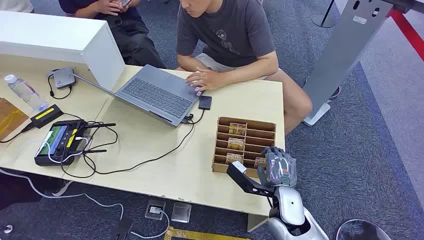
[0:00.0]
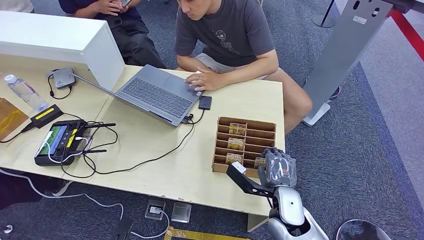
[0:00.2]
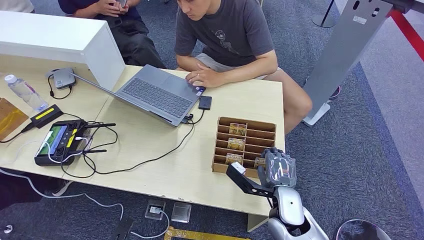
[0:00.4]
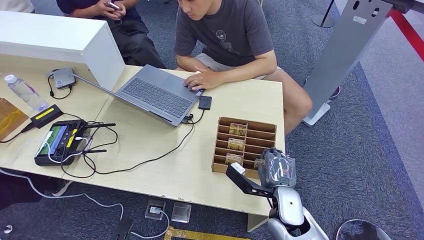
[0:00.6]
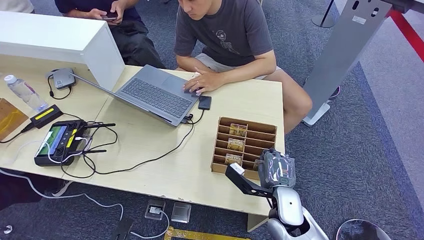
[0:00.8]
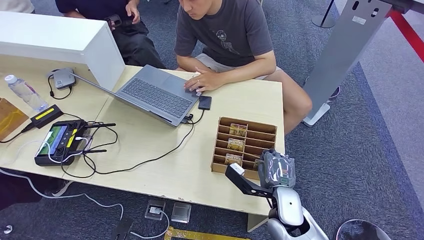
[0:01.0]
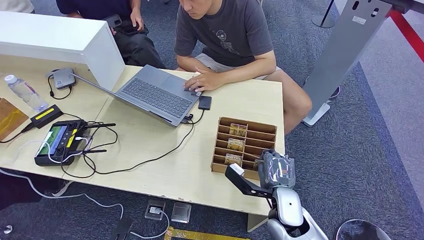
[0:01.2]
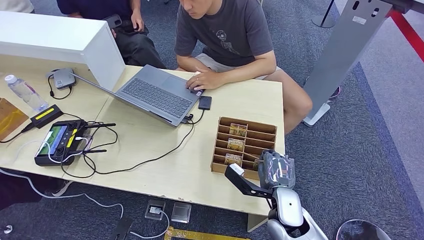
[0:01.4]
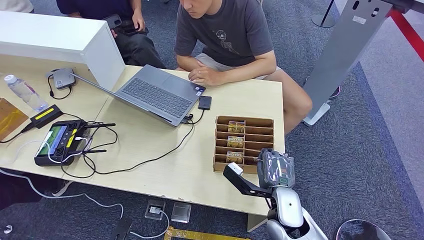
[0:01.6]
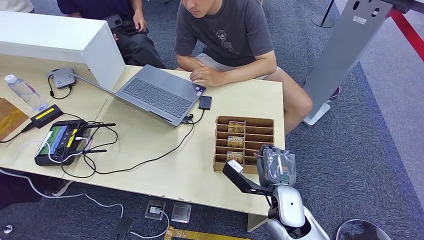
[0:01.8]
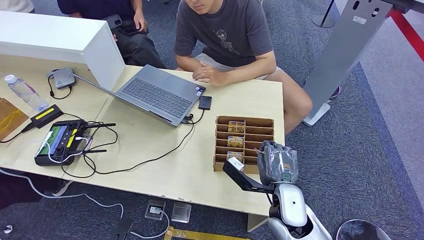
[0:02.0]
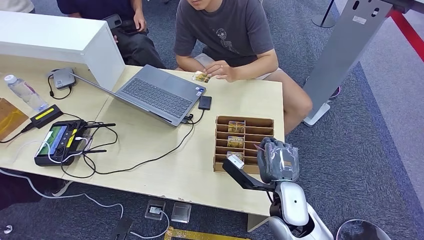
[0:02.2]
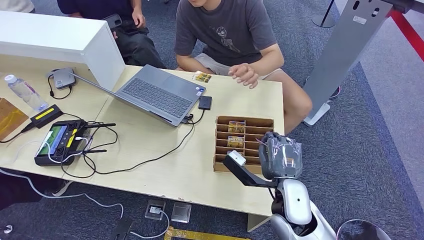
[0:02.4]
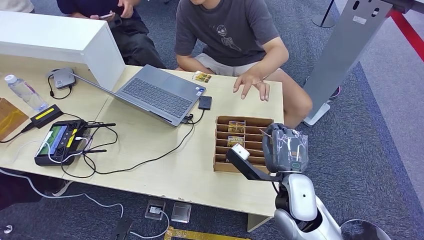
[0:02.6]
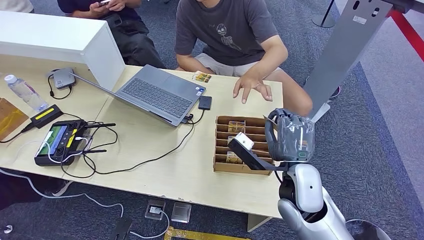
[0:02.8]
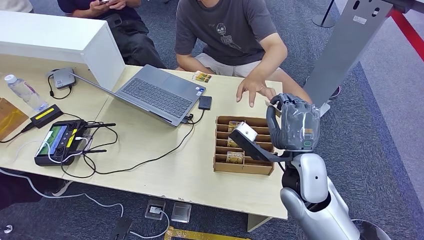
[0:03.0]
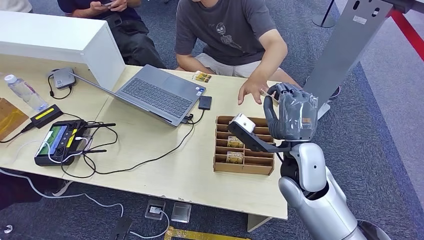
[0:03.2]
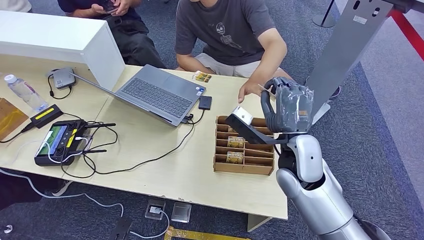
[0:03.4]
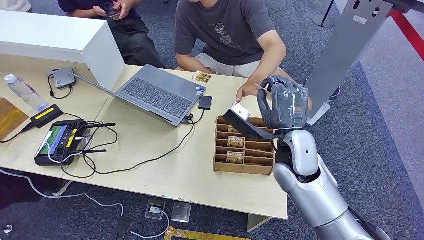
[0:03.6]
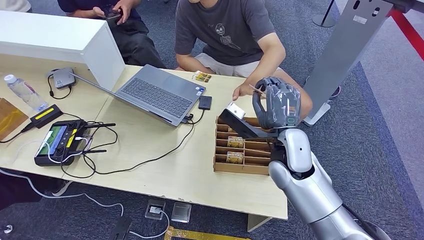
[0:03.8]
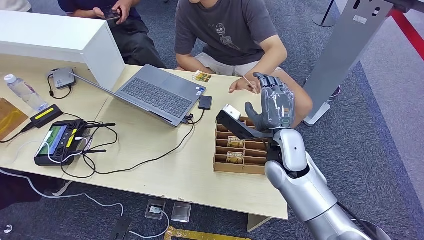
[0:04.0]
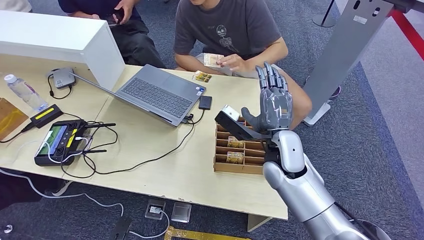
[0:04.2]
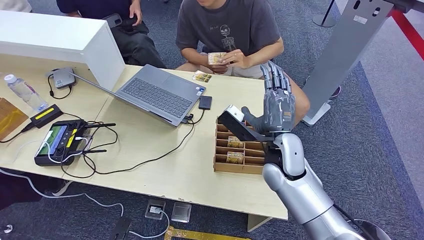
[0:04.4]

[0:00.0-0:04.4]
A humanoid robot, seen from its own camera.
Task of the whole recording: Pick up the card and hand it to the target person.
Step, 0:00.0 to 0:02.4: Pick up the key card from the card box.
Step, 0:02.8 to 0:04.4: Hand the key card to the target.
0:01.4 to 0:03.0: The right hand shifts about 15 cm upward.
0:03.0 to 0:04.4: The right hand heads forward, covering some 5 cm.

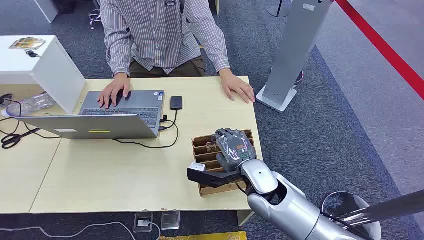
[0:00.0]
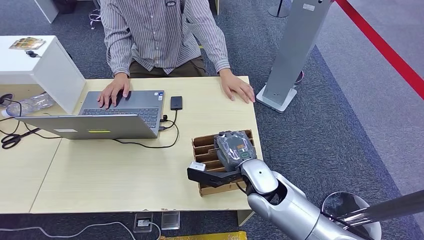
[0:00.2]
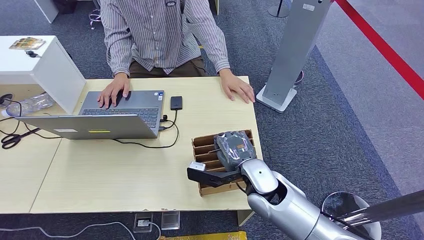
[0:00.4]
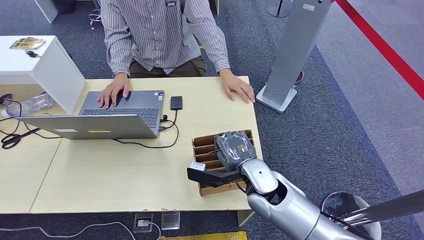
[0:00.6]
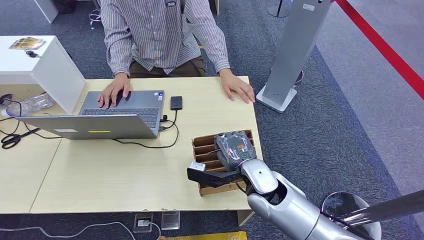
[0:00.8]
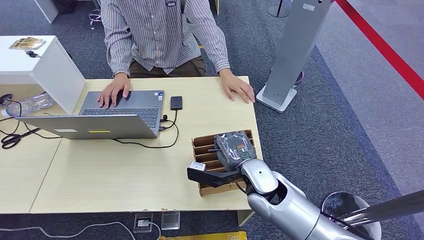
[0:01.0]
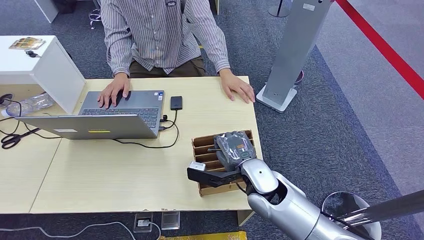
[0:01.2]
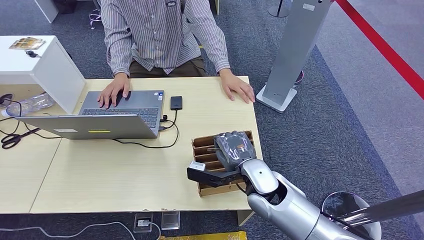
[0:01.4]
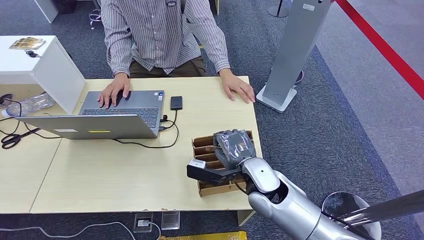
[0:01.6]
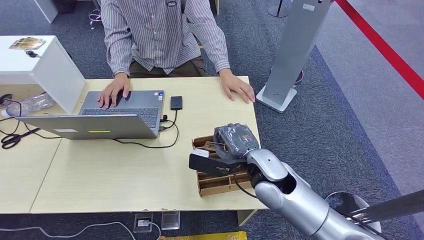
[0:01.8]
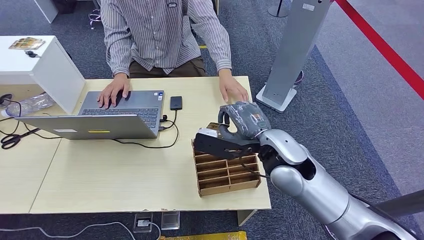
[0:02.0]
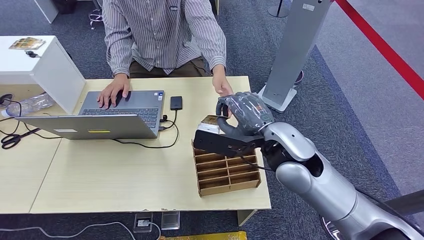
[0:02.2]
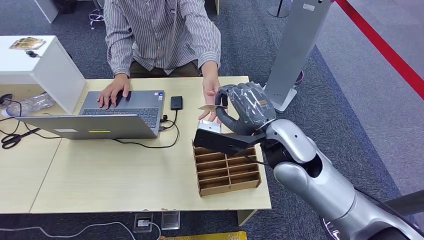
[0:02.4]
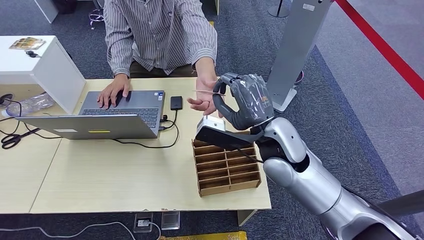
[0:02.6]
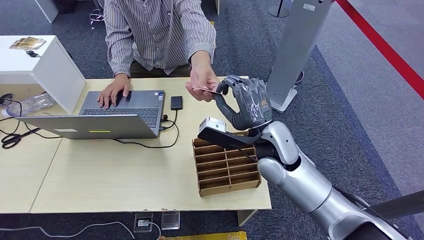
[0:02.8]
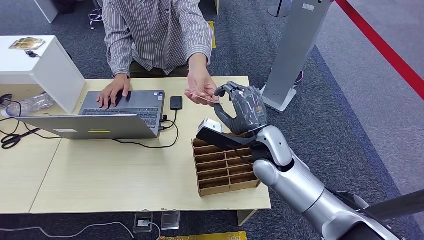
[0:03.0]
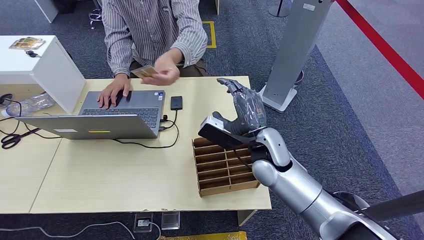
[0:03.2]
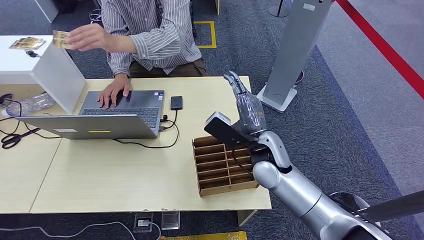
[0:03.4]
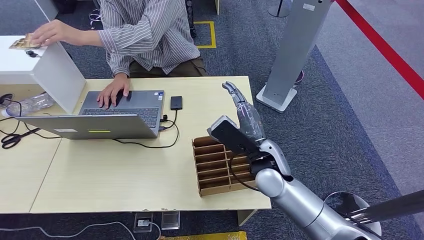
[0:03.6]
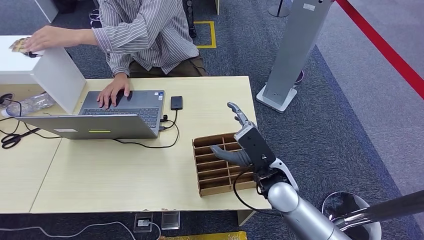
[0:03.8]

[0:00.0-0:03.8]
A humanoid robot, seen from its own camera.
Task of the whole recording: Pick up the card and hand it to the target person.
Step, 0:00.0 to 0:01.8: Pick up the key card from the card box.
Step, 0:03.0 to 0:03.8: Hand the key card to the target.
